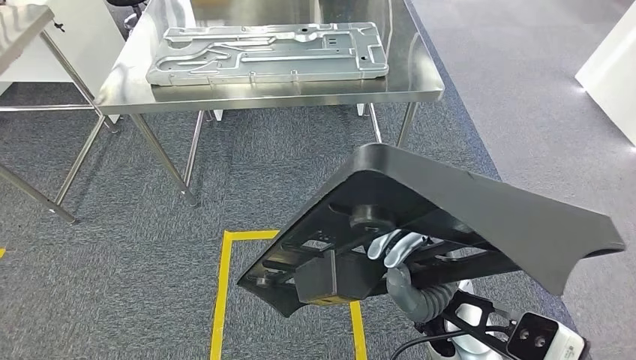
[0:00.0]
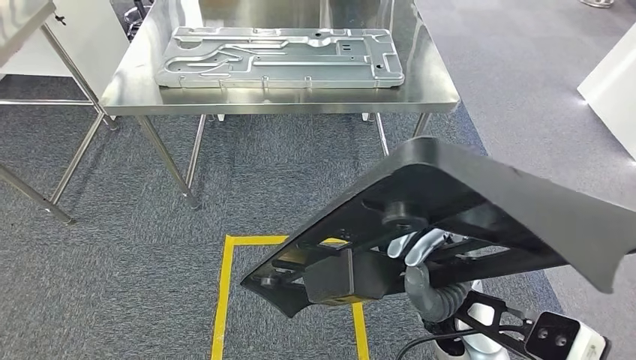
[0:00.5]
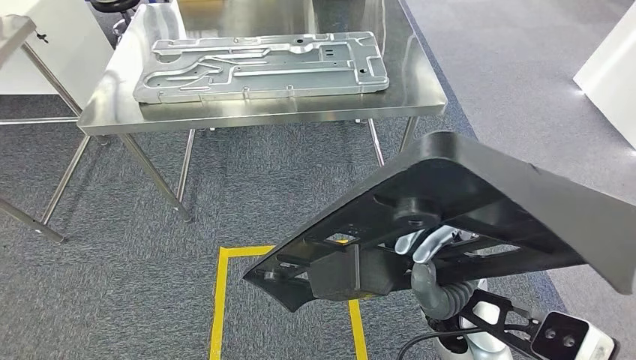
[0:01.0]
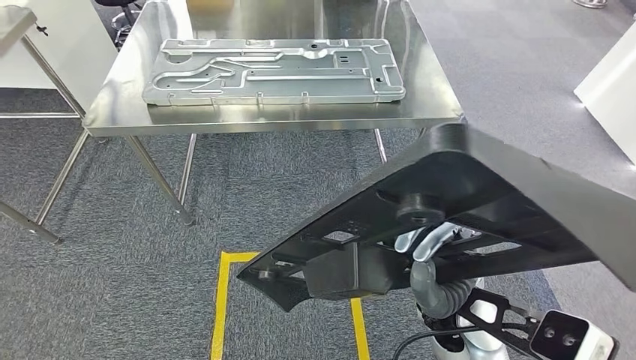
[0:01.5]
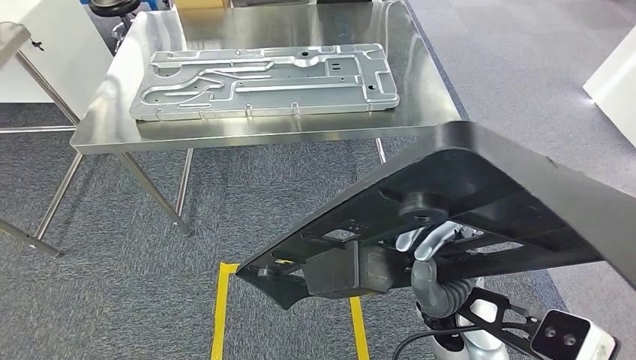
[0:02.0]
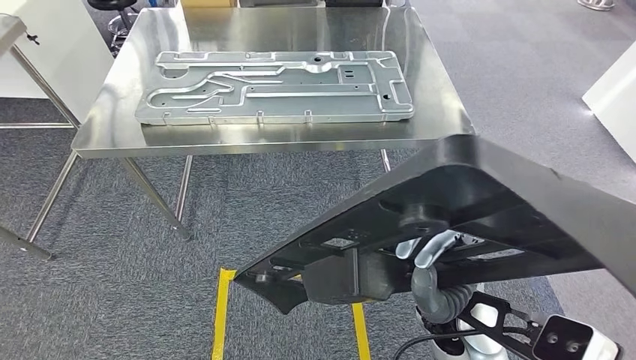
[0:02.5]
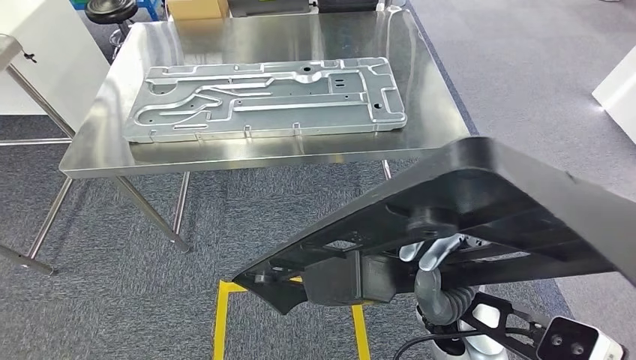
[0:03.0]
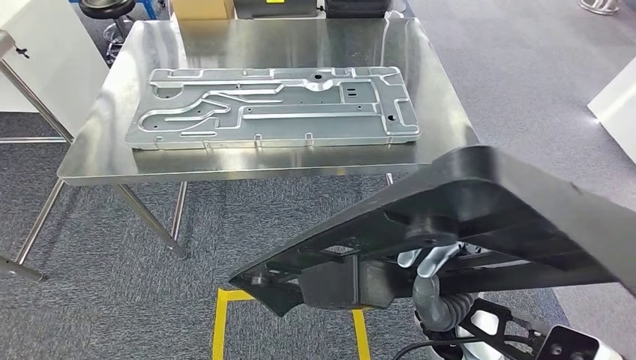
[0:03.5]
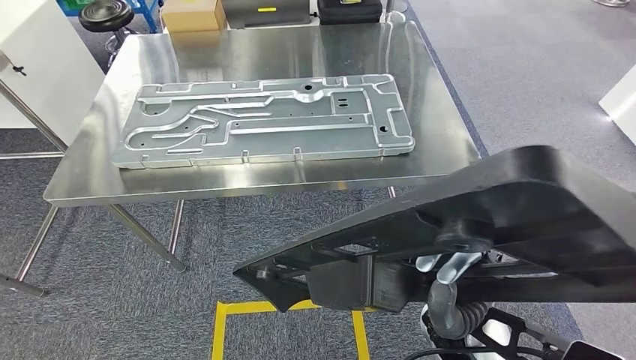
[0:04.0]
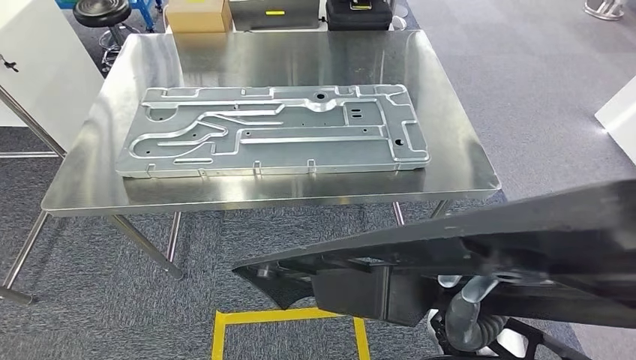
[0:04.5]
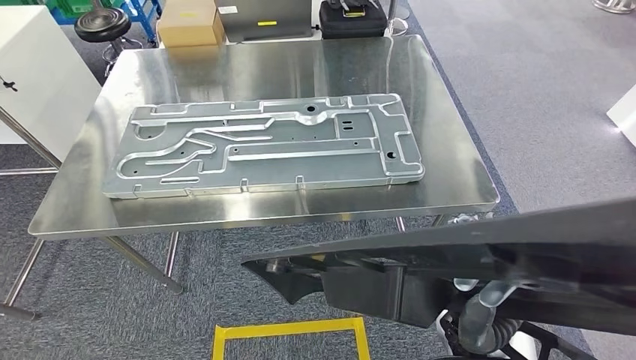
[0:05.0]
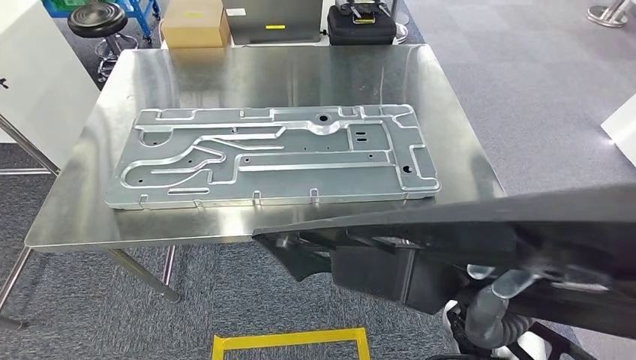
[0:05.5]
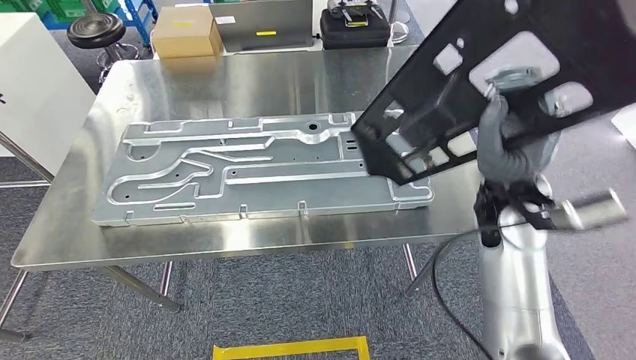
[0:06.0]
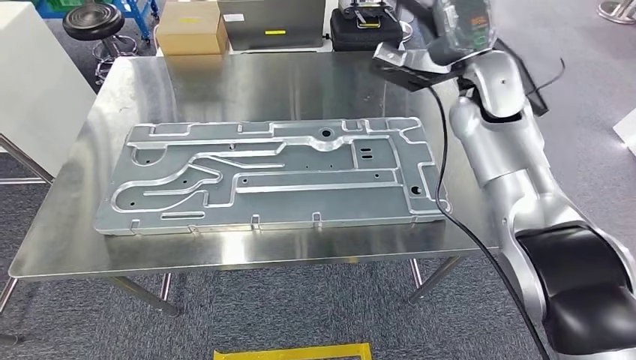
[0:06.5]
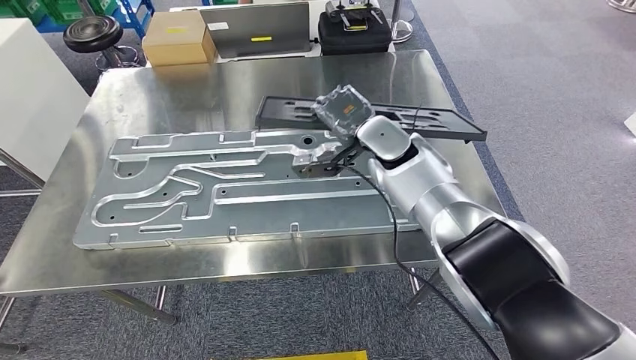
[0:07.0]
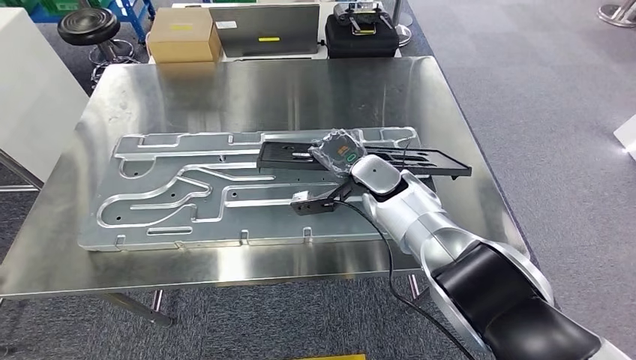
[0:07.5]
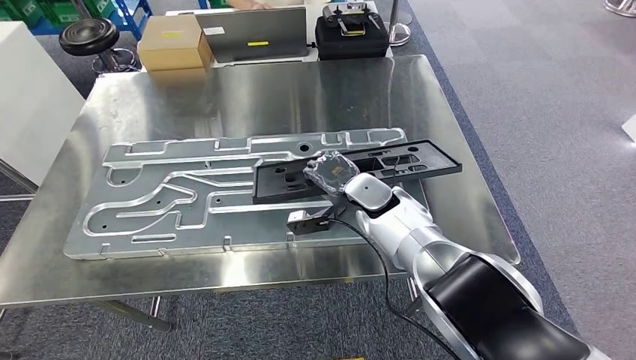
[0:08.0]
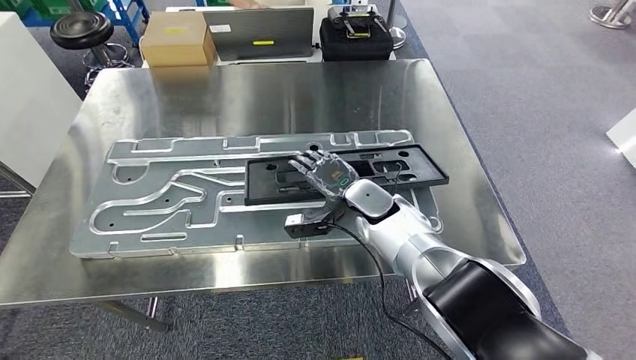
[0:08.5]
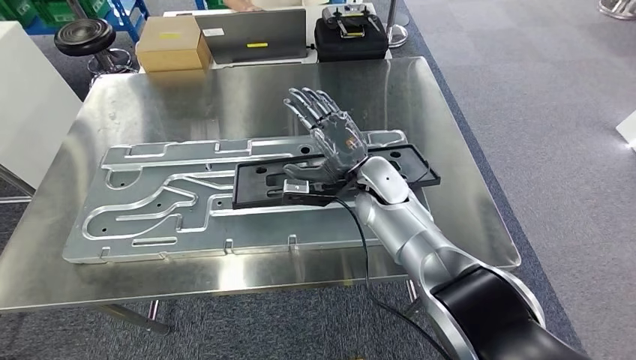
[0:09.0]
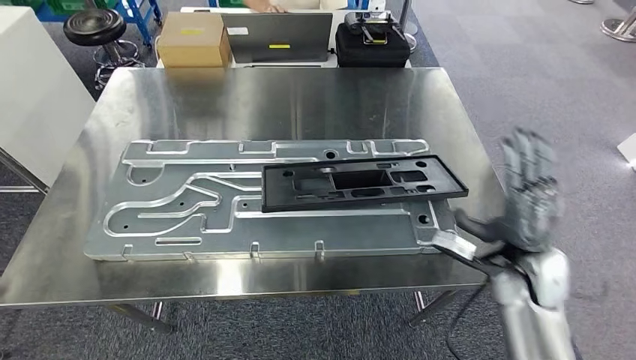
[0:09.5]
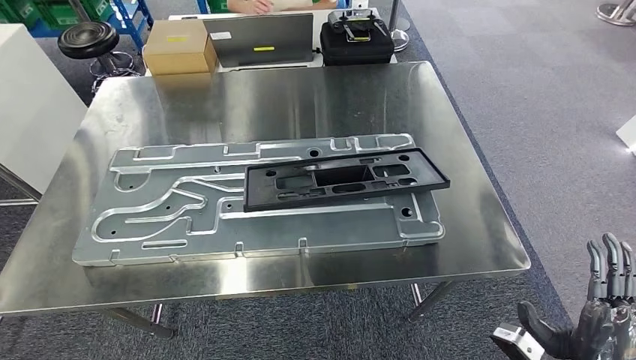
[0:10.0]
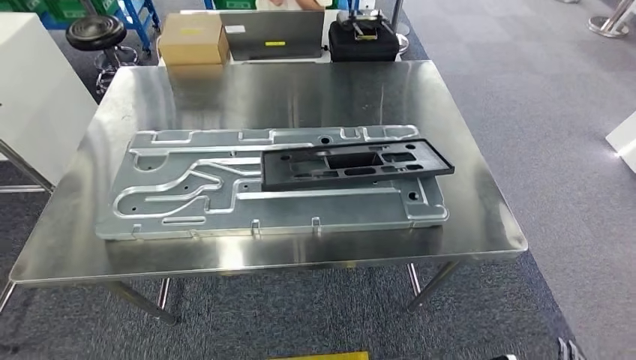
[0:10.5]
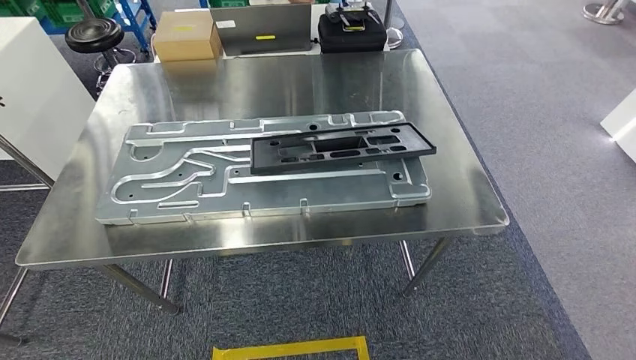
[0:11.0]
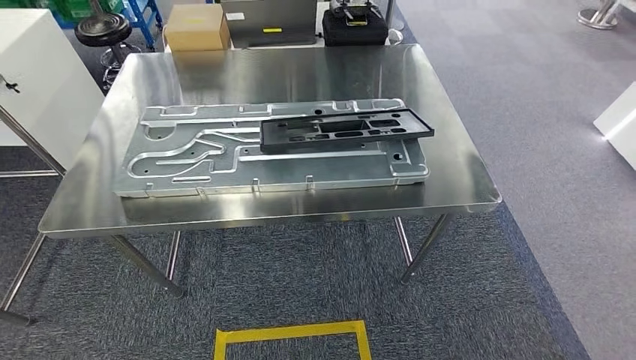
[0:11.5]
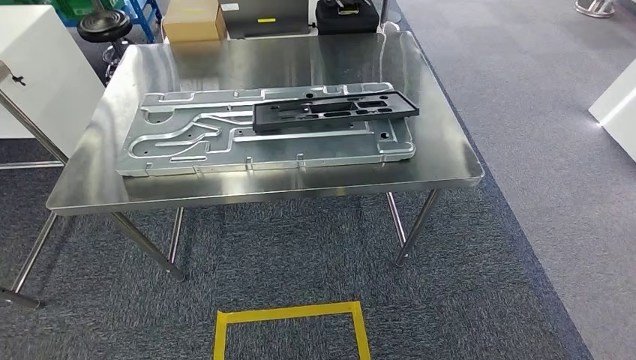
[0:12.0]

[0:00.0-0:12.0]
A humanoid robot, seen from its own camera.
Step, 0:00.0 to 0:04.0: Move the large parts to the workbench.
Step, 0:07.0 to 0:10.5: Insert the large parts into the corresponding slots on the workbench.

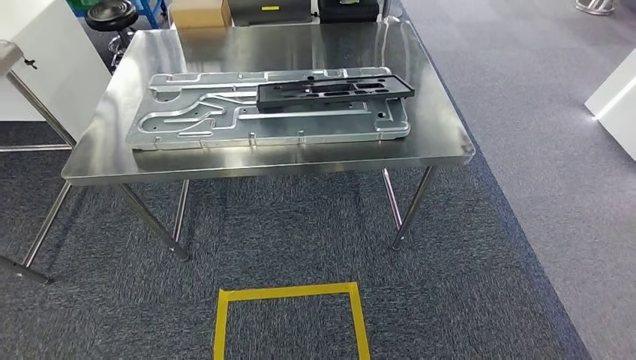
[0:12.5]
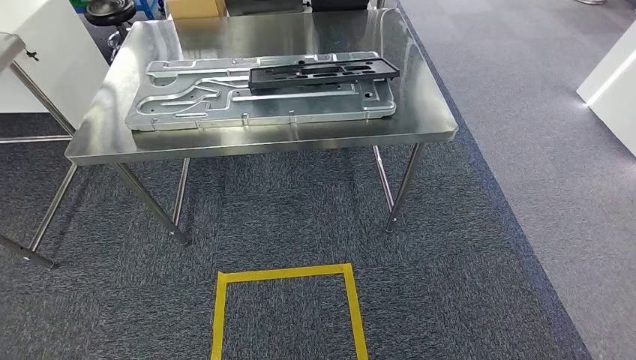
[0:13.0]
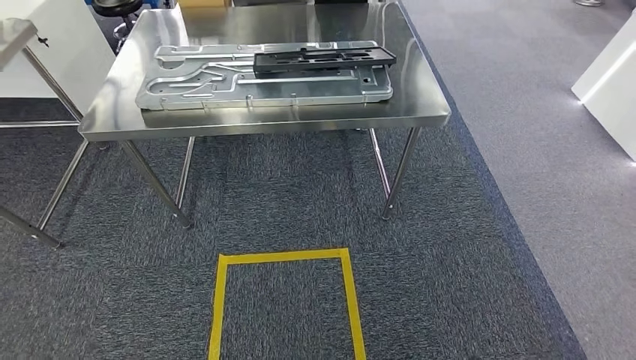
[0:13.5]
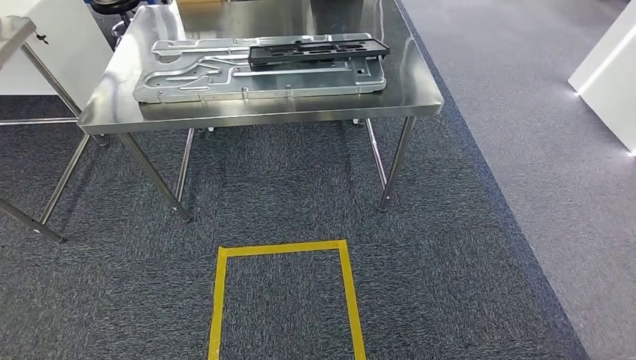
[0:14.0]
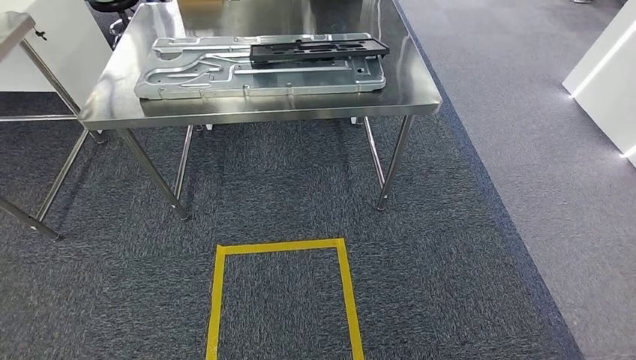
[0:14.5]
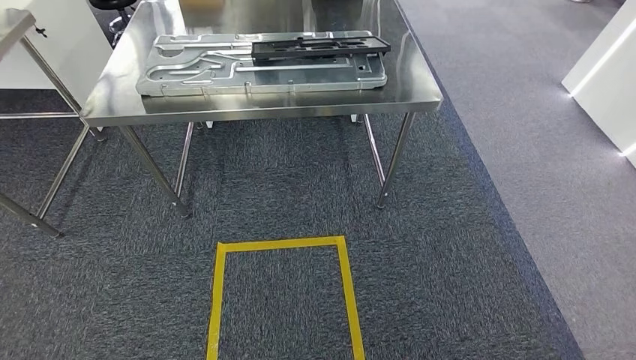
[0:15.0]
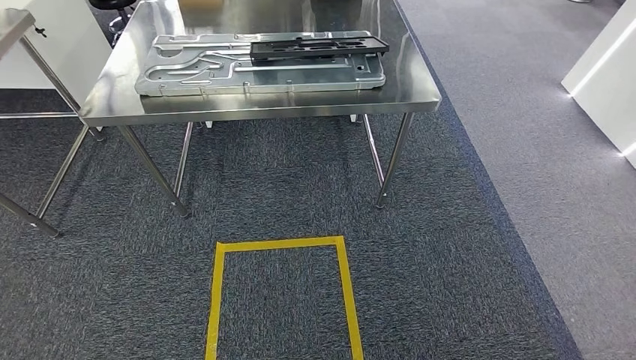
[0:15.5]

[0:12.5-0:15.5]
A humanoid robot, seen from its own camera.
Step, 0:12.5 to 0:15.5: Return to the initial position at the shelf.
0:14.0 to 0:15.5: The hands stay close to where they were, moving slightly.
